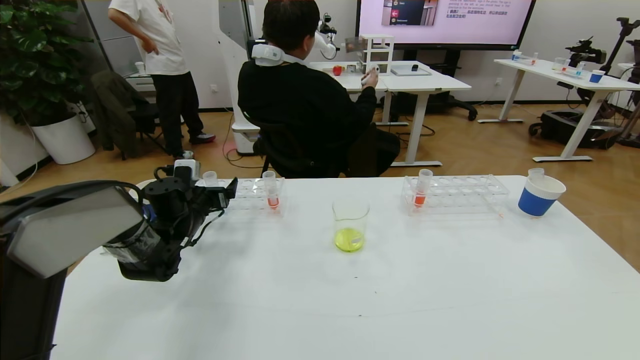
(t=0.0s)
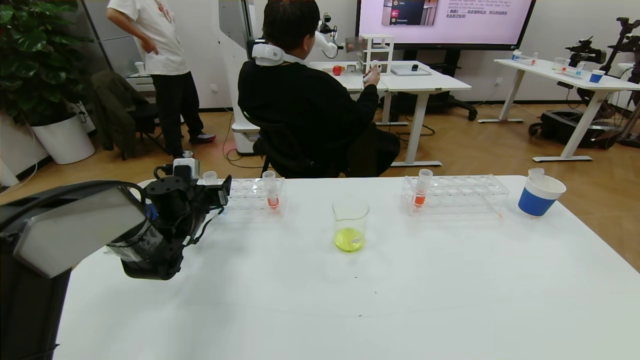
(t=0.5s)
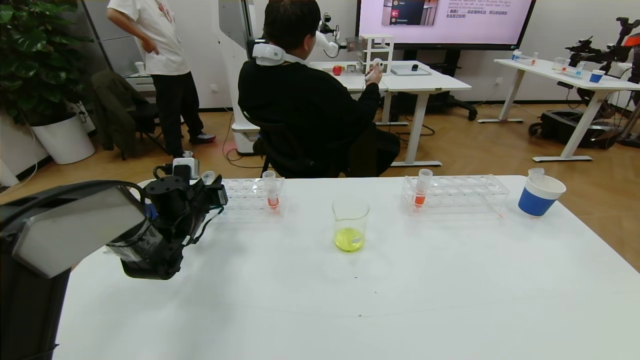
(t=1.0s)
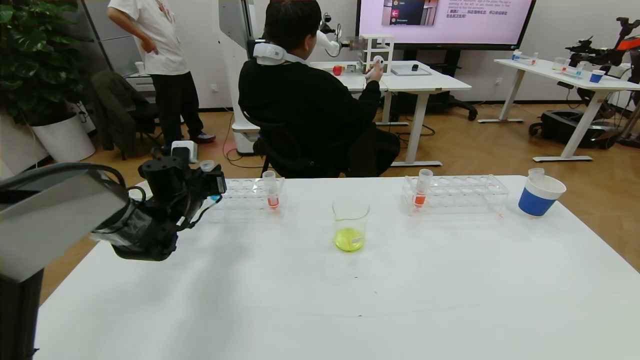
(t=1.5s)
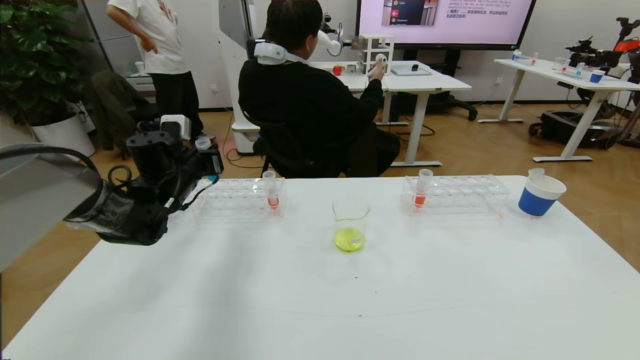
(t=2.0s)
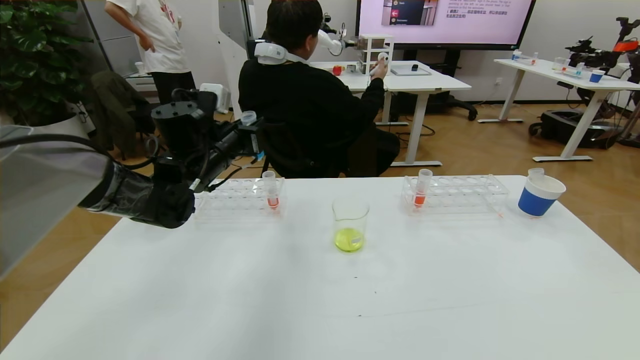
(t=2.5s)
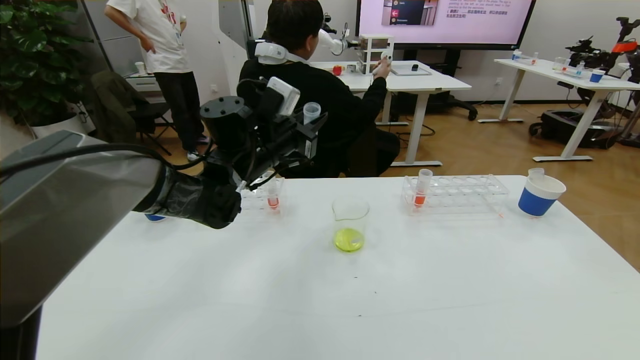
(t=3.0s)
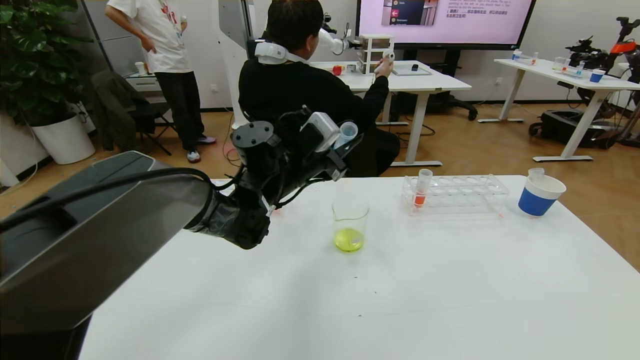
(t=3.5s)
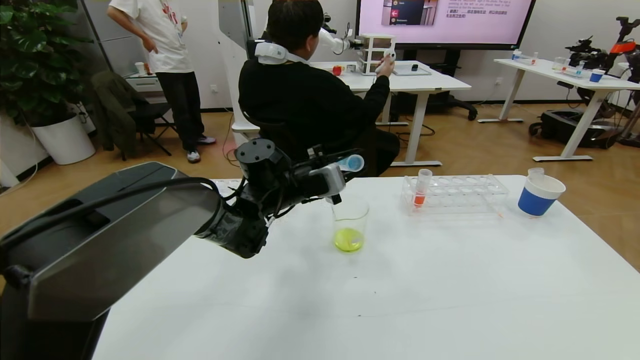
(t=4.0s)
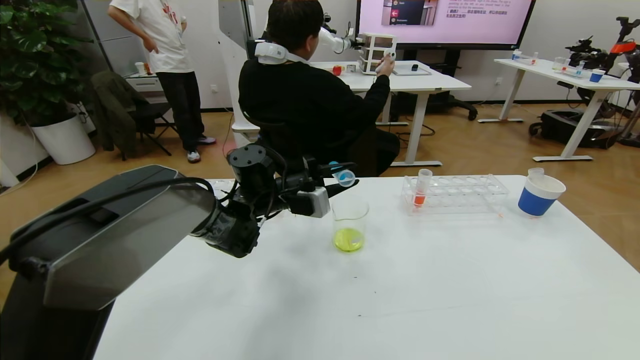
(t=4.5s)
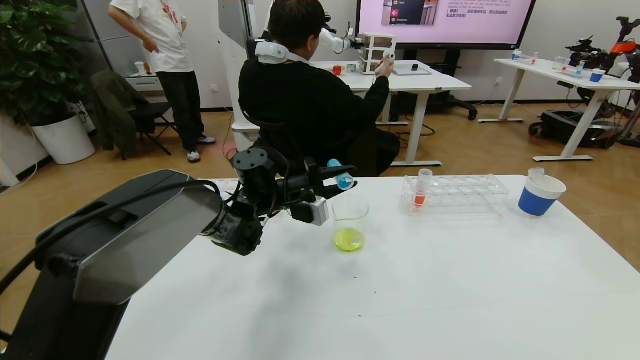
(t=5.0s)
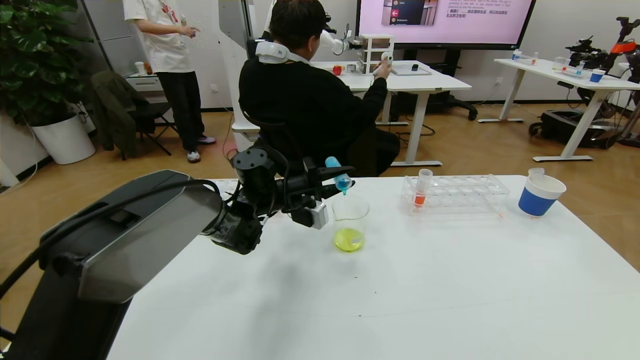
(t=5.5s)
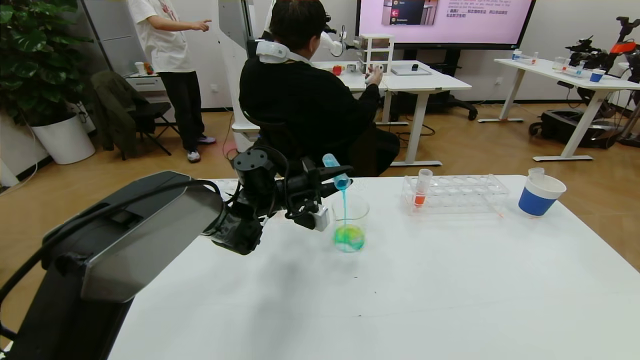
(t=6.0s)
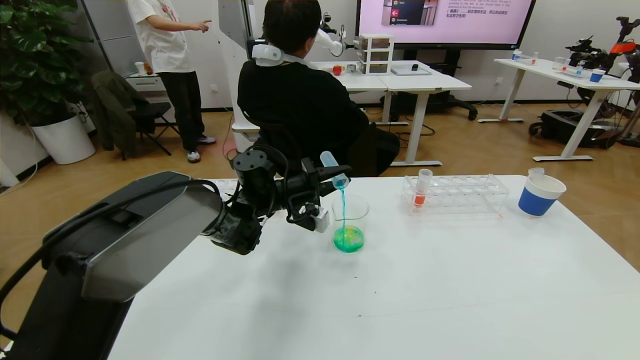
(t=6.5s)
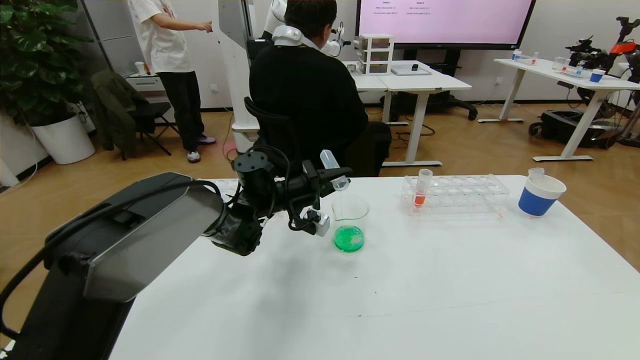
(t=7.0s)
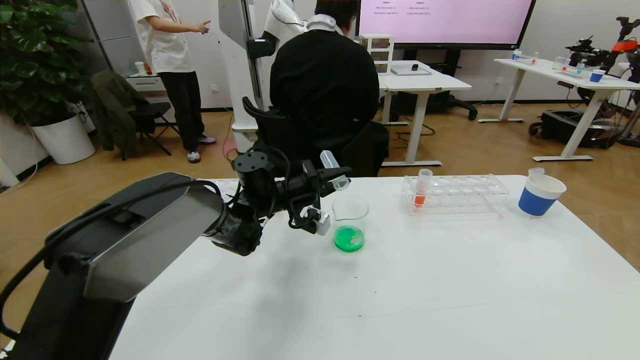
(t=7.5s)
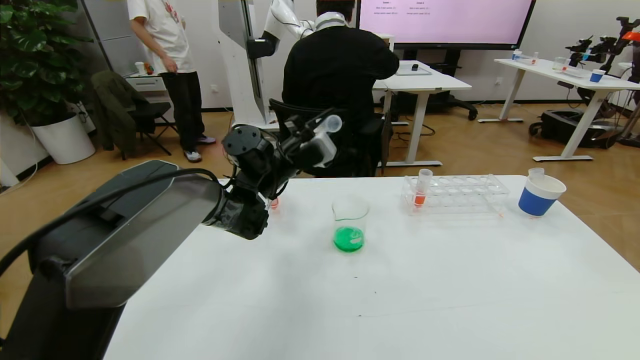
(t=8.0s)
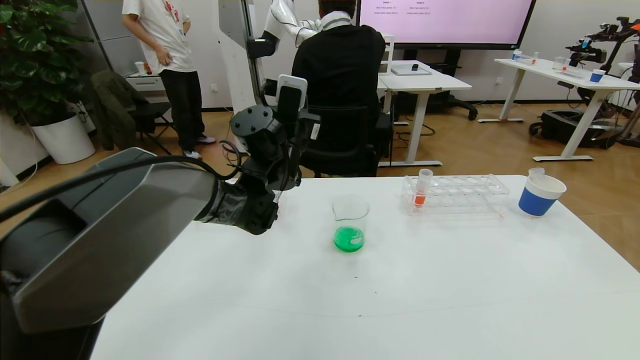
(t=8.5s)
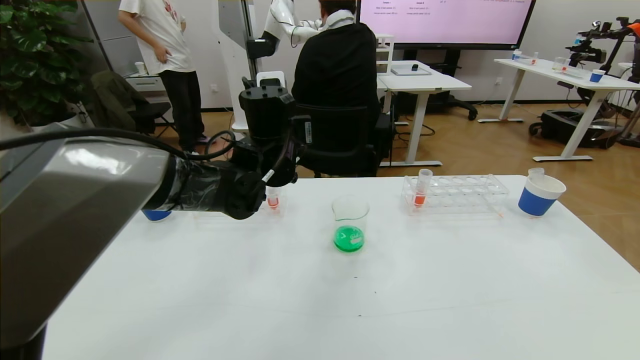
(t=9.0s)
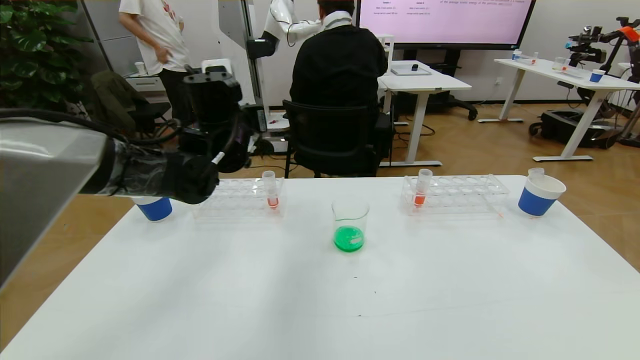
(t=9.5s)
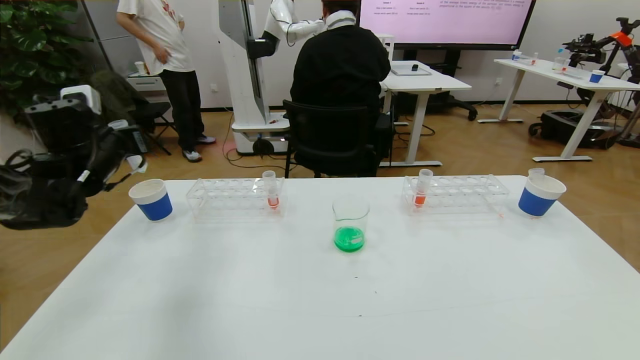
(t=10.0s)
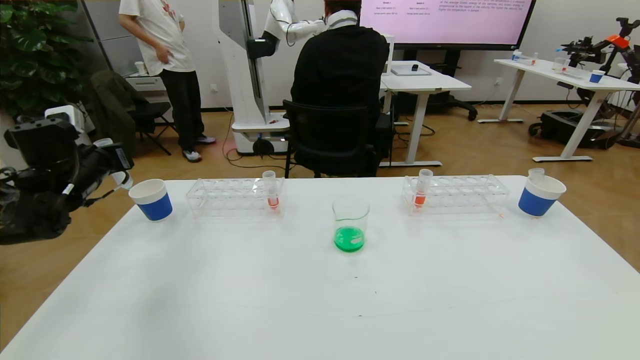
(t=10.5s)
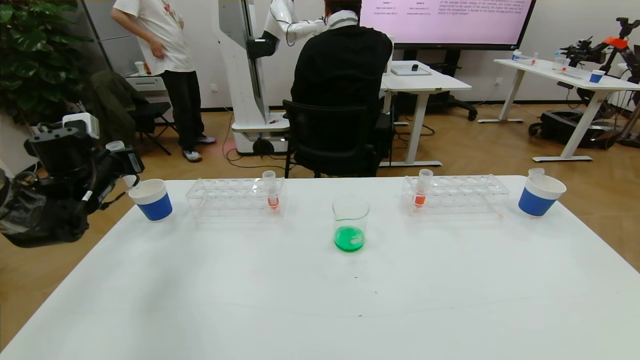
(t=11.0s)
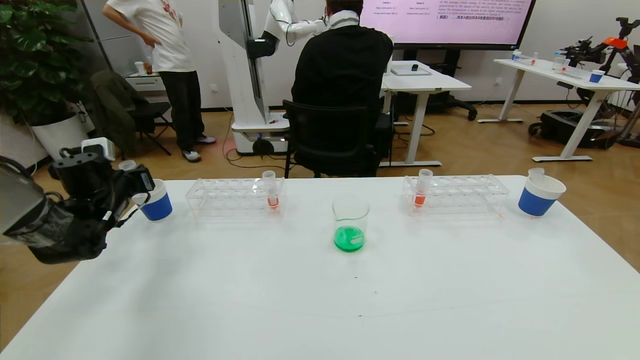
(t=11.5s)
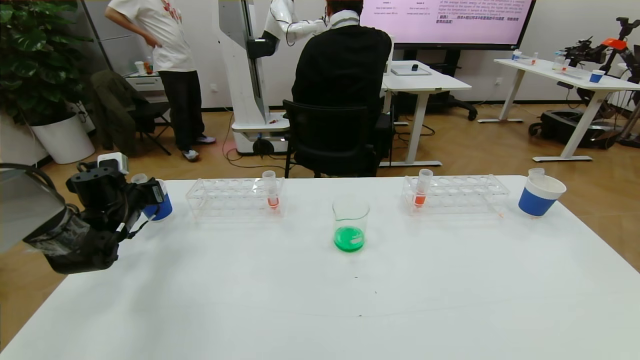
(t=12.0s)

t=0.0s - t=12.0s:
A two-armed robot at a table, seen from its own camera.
Task of the whole recording: pick up the test tube with yellow pigment and the test tube with blue pigment by grippers and pour them into the beaker.
t=0.0s - t=2.0s: The left gripper travels upward by roughly 10 cm, and closes up.
t=2.0s - t=4.0s: The left gripper heads to the right, covering some 20 cm.
t=4.0s - t=6.0s: The left gripper shifts by about 5 cm.
t=6.0s - t=8.0s: The left gripper heads upward, covering about 5 cm.
t=8.0s - t=10.0s: The left gripper shifts approximately 30 cm to the left.
t=10.0s - t=12.0s: The left gripper moves downward, about 10 cm.

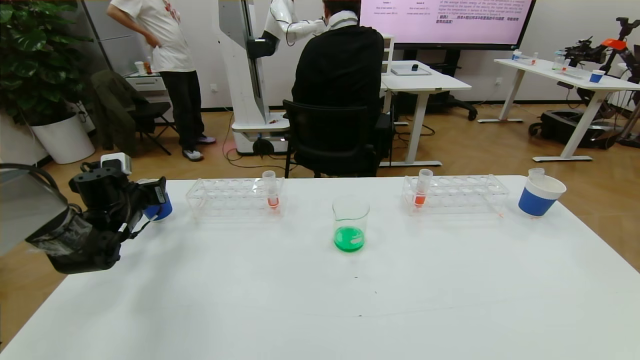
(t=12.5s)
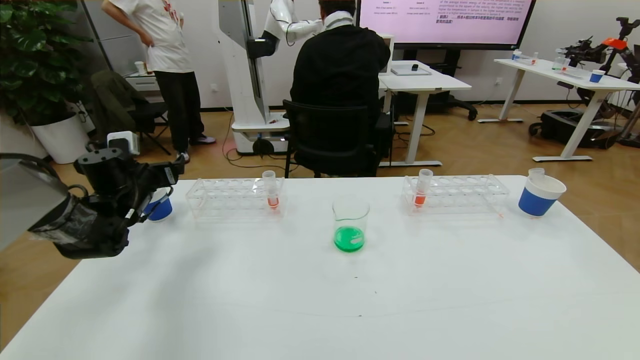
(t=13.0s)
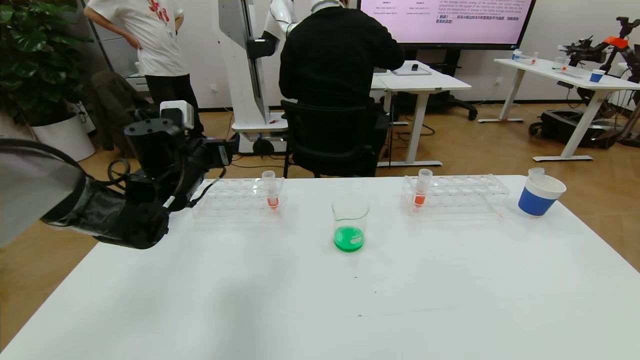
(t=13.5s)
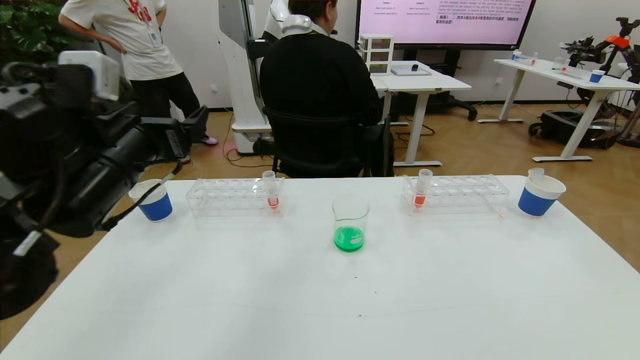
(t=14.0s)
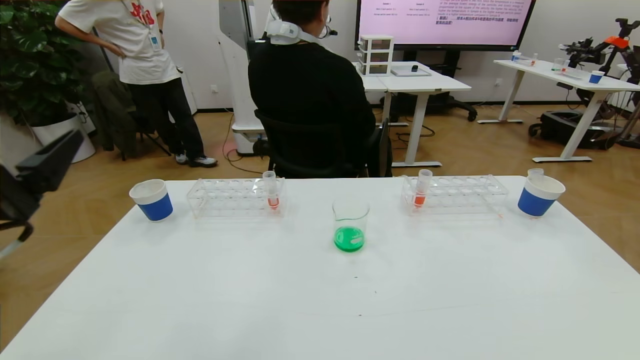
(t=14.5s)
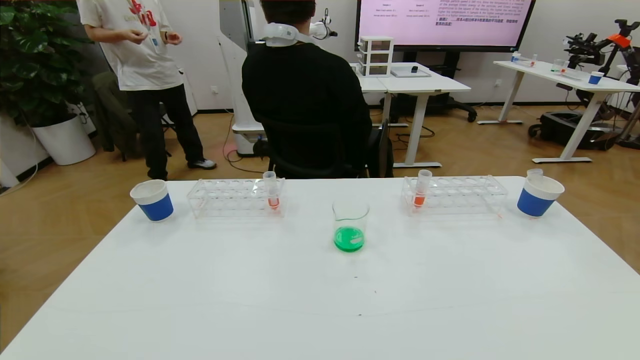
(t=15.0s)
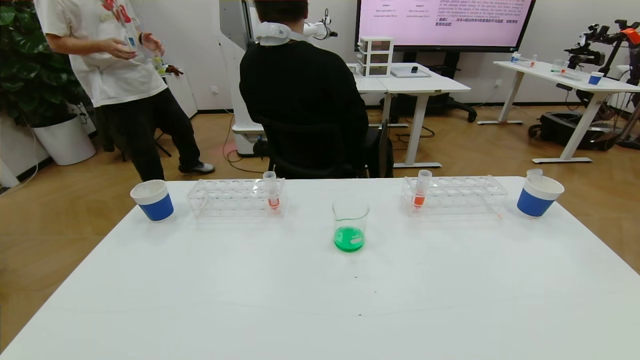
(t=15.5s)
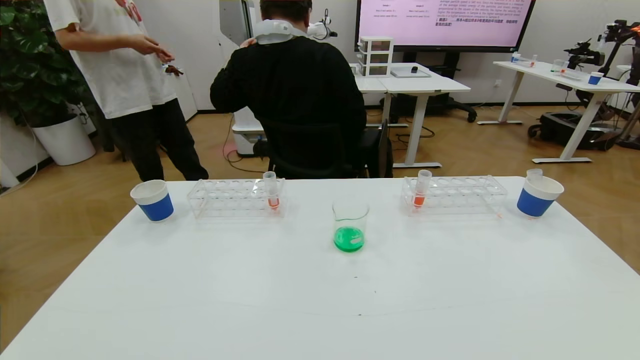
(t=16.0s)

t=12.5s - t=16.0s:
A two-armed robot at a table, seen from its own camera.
Task of the whole recording: pick up the test tube with yellow pigment and the test tube with blue pigment by grippers and pour them into the beaker.
t=12.5s - t=14.5s: The left gripper travels backward and upward by some 35 cm.
t=14.5s - t=16.0s: The left gripper heads downward and backward, covering some 25 cm.
